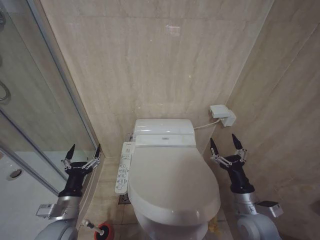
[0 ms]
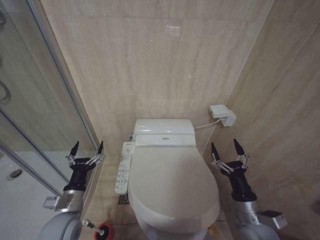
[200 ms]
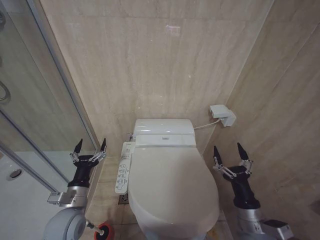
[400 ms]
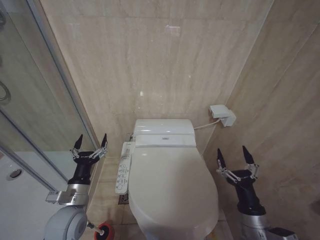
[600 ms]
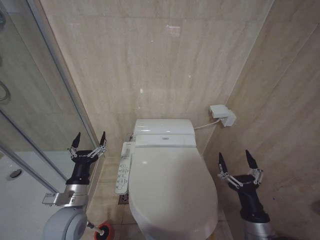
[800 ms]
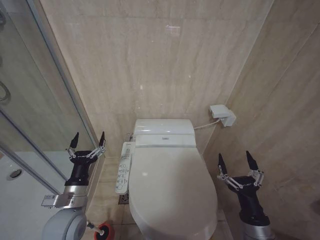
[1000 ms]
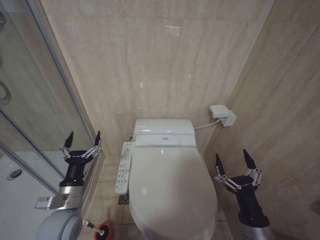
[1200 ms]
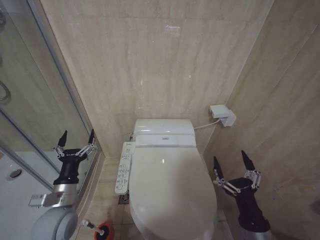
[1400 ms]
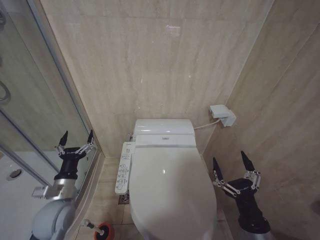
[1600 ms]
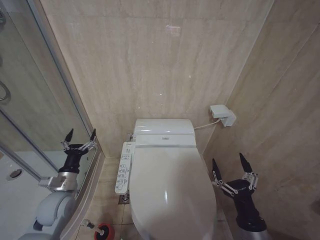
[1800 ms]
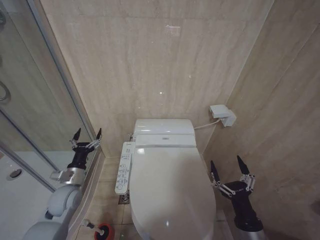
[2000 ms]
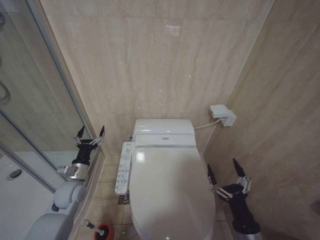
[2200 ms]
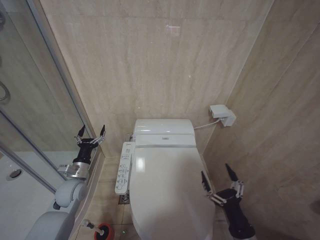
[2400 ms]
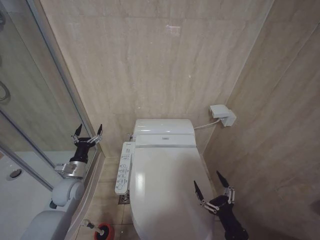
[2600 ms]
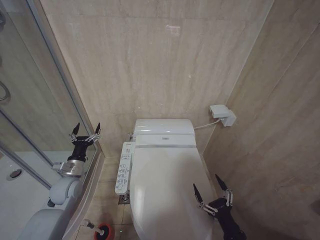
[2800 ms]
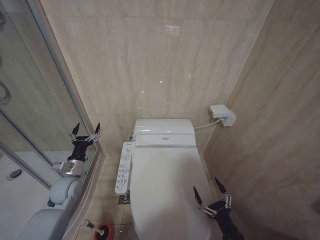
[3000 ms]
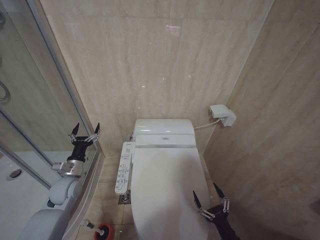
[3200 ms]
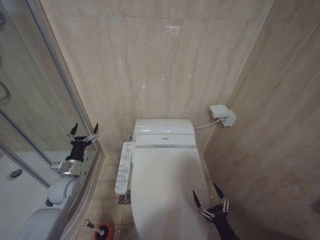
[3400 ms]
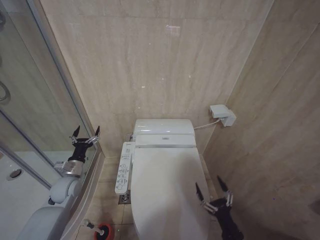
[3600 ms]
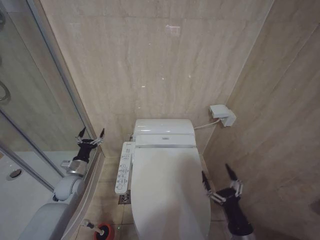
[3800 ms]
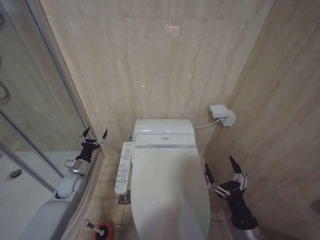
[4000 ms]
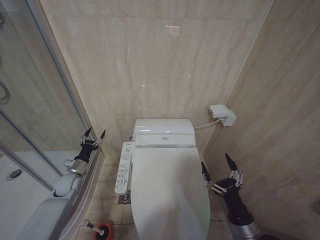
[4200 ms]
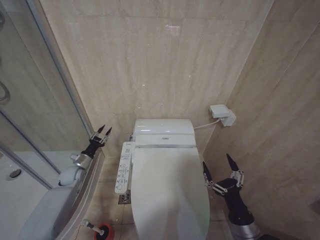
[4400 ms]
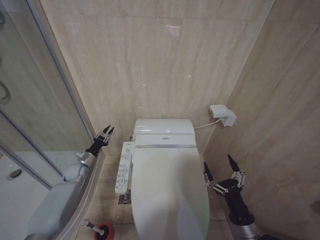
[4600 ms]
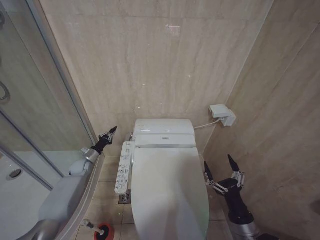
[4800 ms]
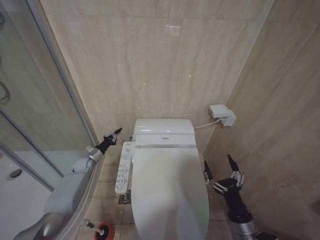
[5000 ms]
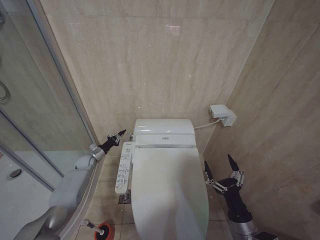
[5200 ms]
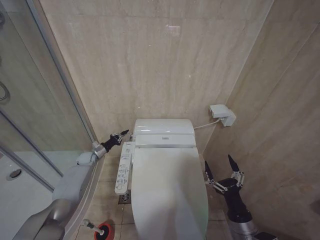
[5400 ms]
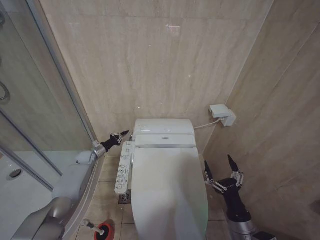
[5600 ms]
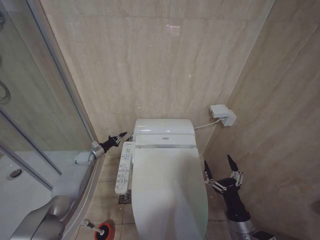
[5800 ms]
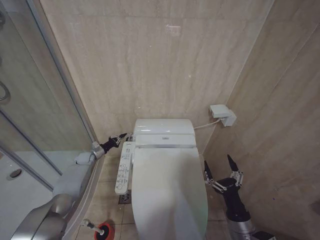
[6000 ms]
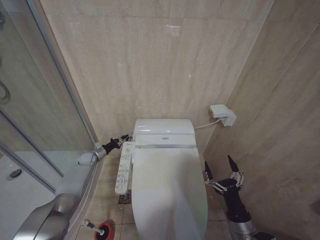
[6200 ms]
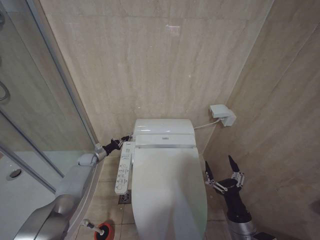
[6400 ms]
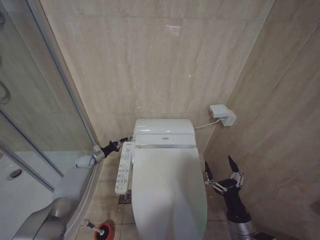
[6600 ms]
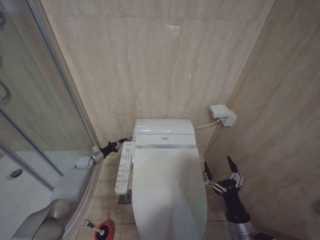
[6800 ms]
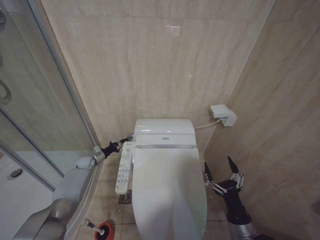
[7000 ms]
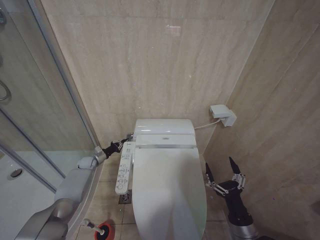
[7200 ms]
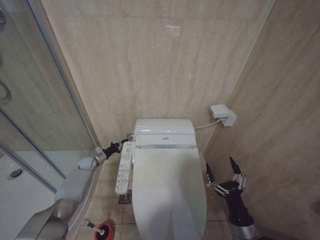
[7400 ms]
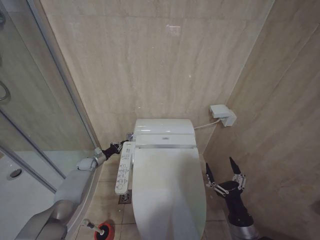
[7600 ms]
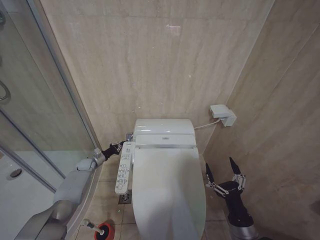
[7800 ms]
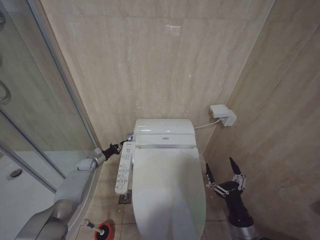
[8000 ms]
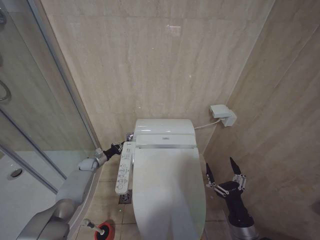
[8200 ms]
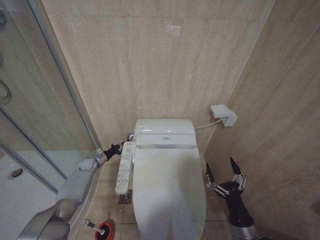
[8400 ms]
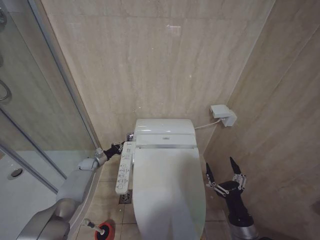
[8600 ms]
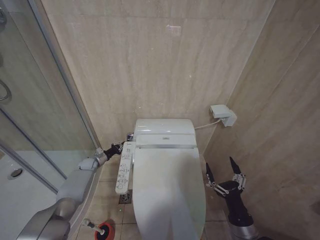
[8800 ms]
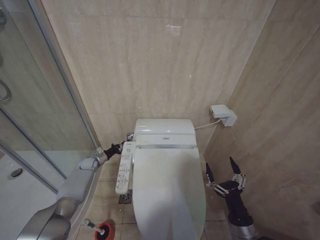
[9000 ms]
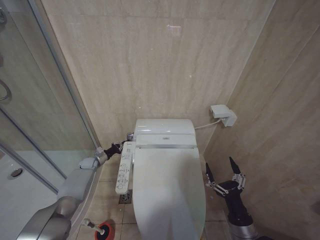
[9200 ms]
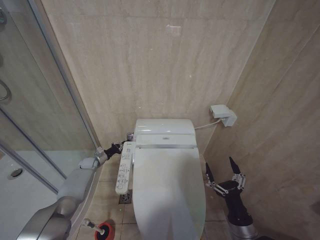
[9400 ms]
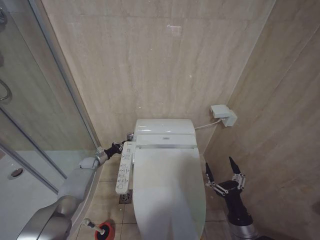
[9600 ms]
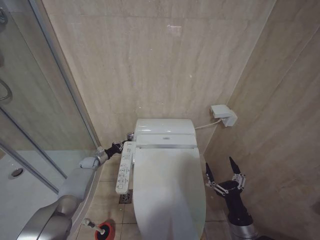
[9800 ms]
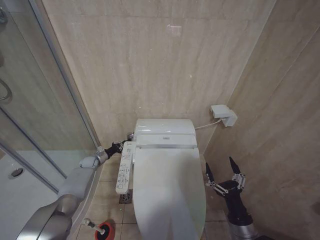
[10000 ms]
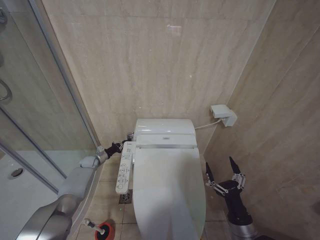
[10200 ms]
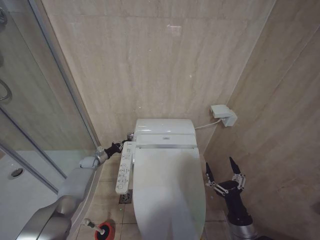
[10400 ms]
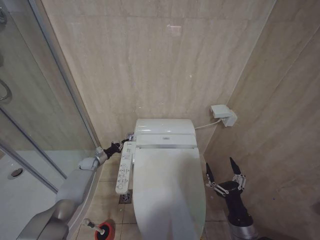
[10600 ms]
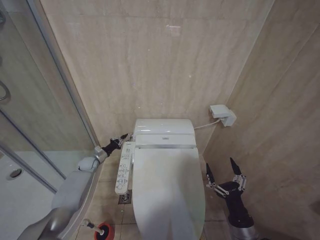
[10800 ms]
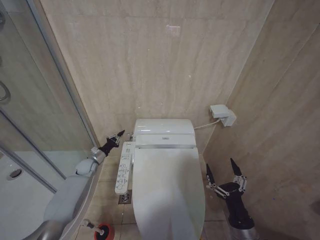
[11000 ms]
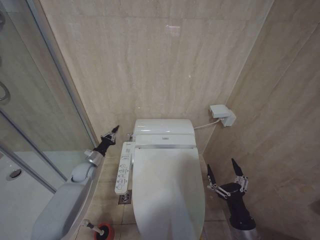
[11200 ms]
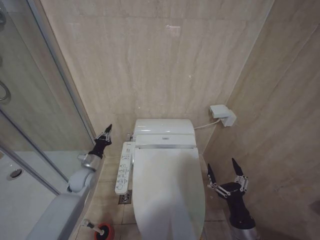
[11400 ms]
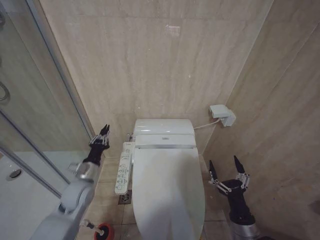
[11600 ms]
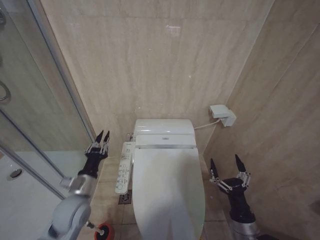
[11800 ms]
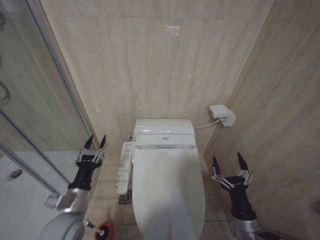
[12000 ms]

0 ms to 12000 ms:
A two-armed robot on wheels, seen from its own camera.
Task of the whole recording: Open the toilet lid, clean the toilet bowl with a toilet brush, close the toilet lid, and flush.
0 ms to 1600 ms: The right gripper travels backward by roughly 10 cm.
1600 ms to 3000 ms: The right gripper moves downward, about 10 cm. Meanwhile the left gripper moves forward, some 10 cm.
3000 ms to 4400 ms: The left gripper goes some 10 cm forward and downward; the right gripper shifts roughly 10 cm upward.
4400 ms to 6000 ms: The left gripper moves forward, some 15 cm, and closes.
6000 ms to 7600 ms: The grippers stay close to where they were, moving slightly.
7600 ms to 10400 ms: The two grippers keep their place.
10400 ms to 12000 ms: The left gripper shifts about 35 cm backward and upward.

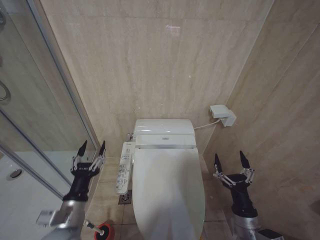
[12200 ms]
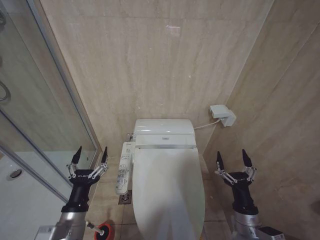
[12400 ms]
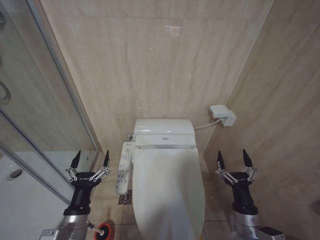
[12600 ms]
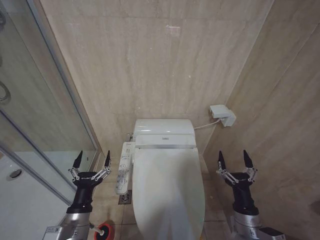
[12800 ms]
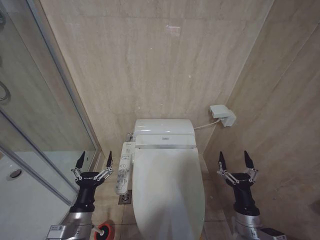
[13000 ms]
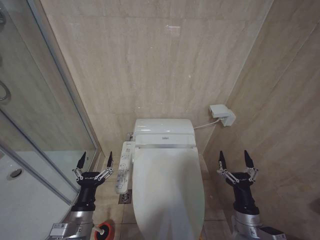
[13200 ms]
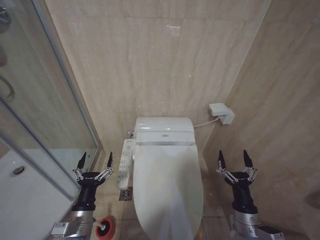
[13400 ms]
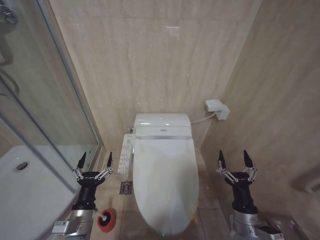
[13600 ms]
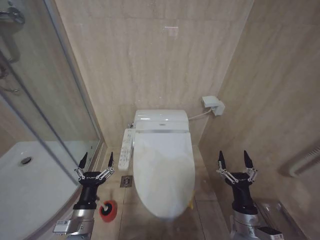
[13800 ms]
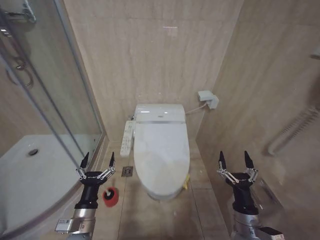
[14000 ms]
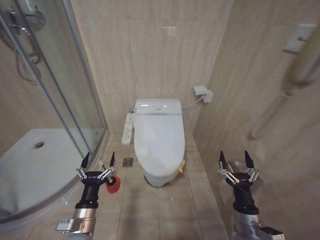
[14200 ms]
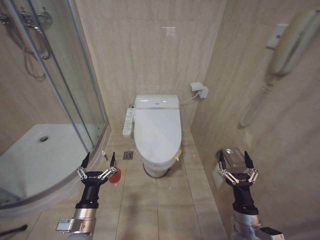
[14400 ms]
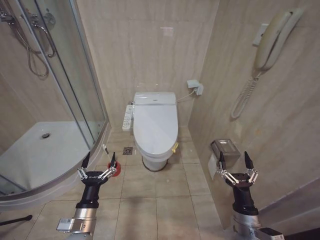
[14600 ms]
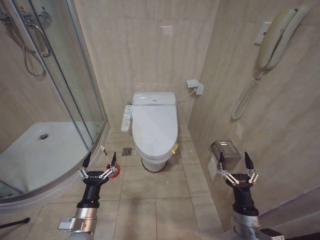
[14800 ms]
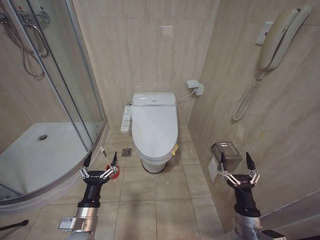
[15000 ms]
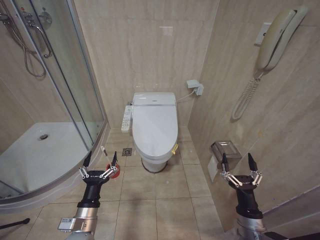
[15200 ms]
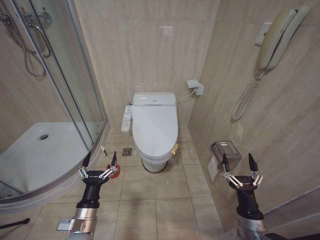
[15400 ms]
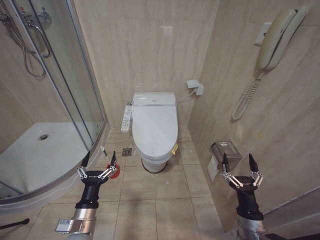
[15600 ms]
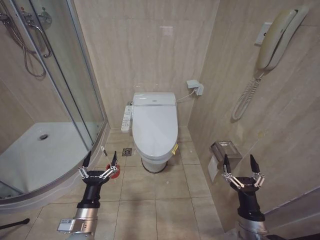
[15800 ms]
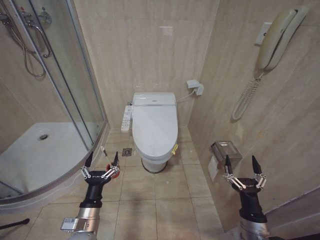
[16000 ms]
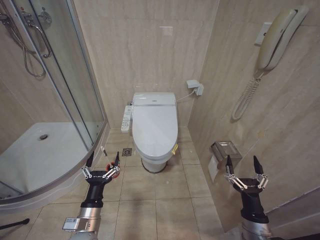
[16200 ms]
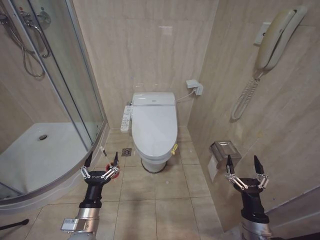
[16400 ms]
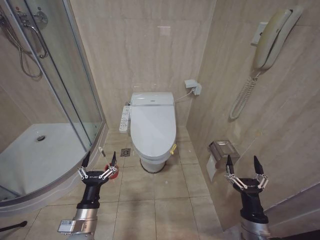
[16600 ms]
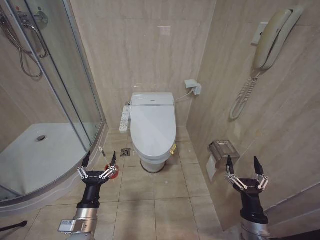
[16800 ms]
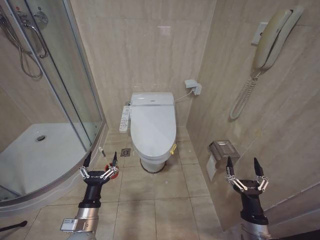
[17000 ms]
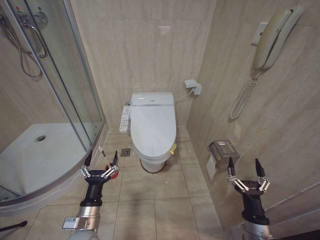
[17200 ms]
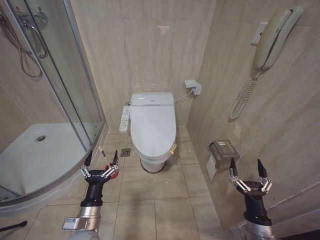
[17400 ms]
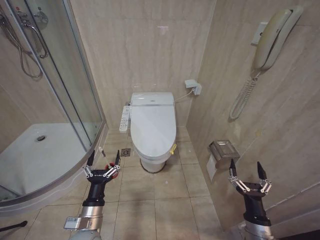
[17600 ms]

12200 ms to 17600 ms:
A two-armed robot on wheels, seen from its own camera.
Task of the whole recording: Open the toilet lid, clean the toilet bowl with a toilet brush, close the toilet lid, and flush.
12200 ms to 13600 ms: The left gripper shifts by some 5 cm, and opens up.
15000 ms to 17600 ms: The grippers move only a little.

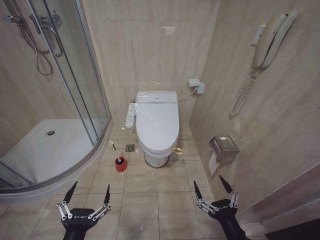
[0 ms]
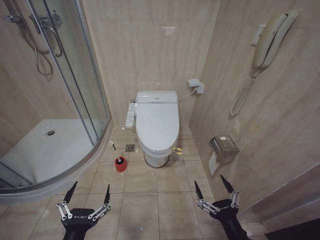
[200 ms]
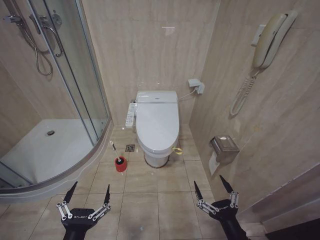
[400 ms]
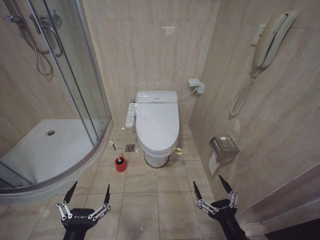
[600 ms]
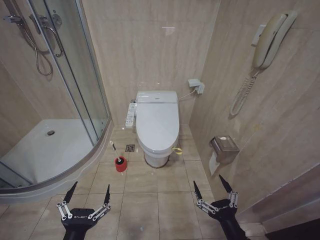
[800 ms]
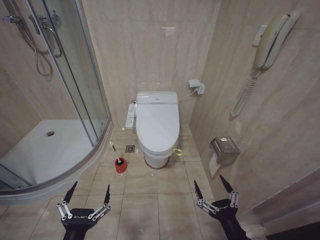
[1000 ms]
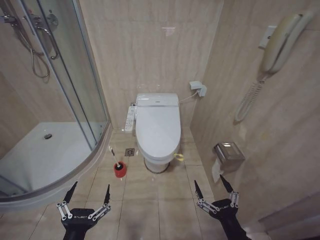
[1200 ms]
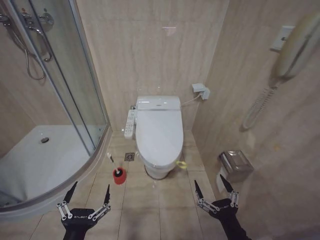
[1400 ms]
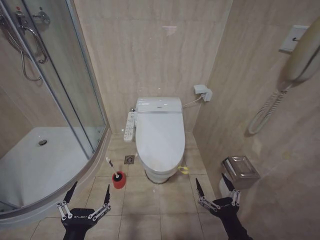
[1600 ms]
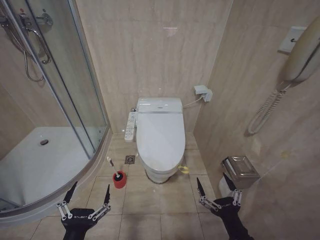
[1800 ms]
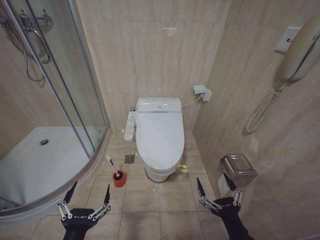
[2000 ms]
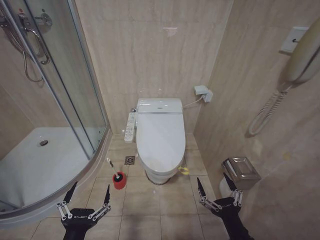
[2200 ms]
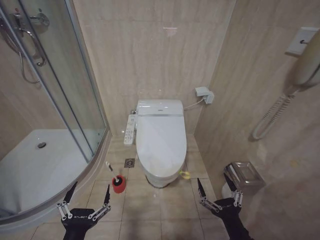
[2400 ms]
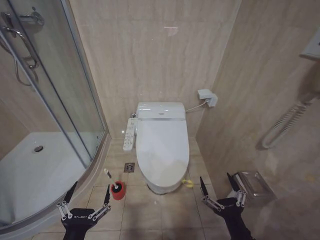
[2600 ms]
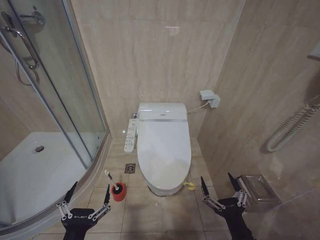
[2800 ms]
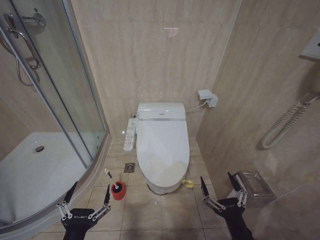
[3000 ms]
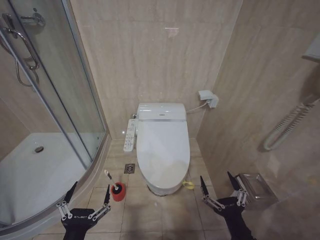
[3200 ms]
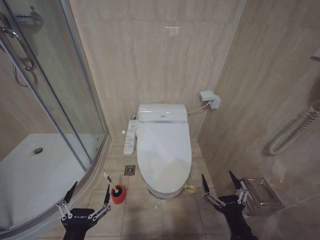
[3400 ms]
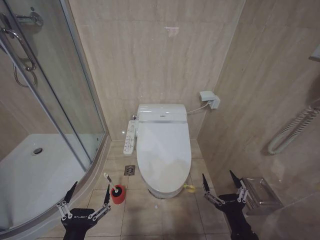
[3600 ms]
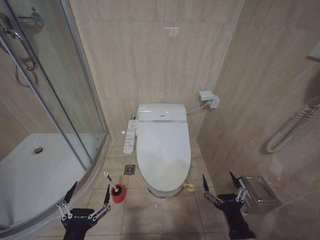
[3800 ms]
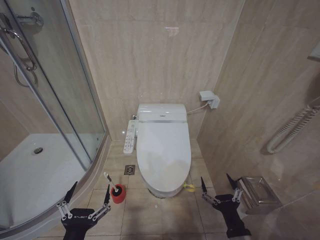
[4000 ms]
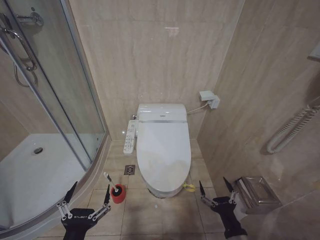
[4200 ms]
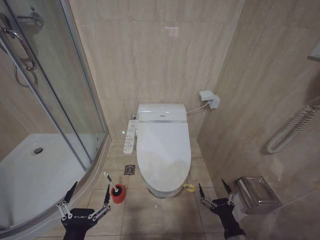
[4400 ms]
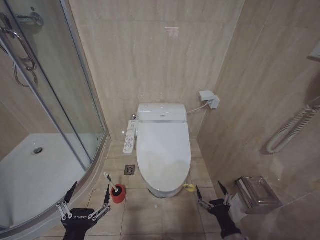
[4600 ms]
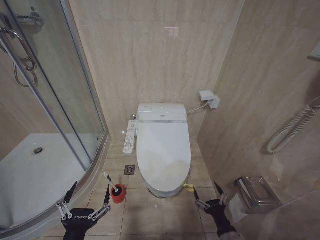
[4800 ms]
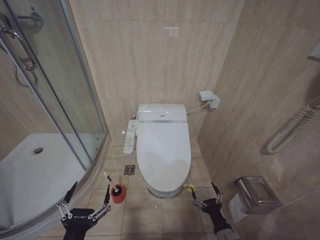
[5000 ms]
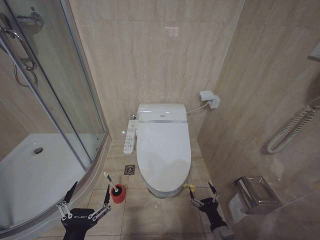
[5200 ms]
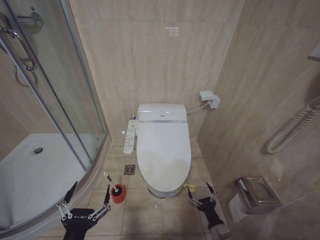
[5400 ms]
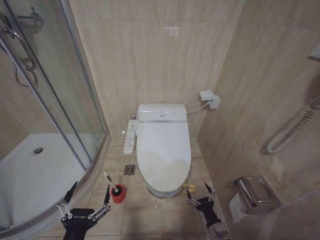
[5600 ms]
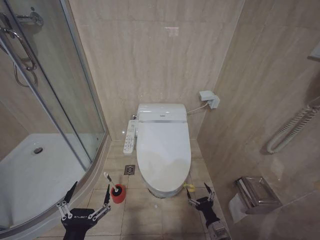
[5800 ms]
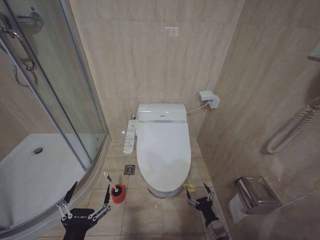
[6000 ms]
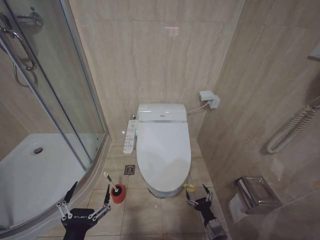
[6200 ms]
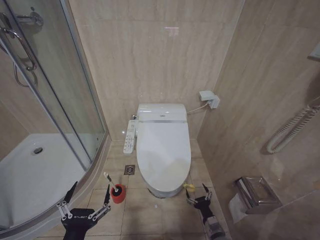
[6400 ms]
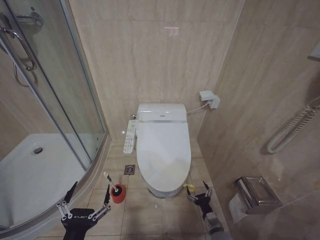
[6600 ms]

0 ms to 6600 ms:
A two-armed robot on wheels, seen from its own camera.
Task of the whole recording: Open the toilet lid, clean the toilet bowl with a toilet brush, close the toilet lid, and flush.
1600 ms to 3200 ms: The grippers stay close to where they were, moving slightly.
3200 ms to 5000 ms: The right gripper goes about 15 cm downward and forward.
5000 ms to 6600 ms: The right gripper moves downward and forward, some 15 cm.
